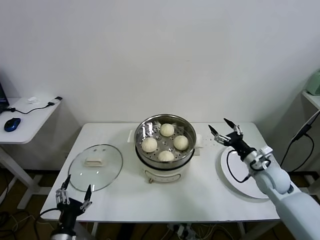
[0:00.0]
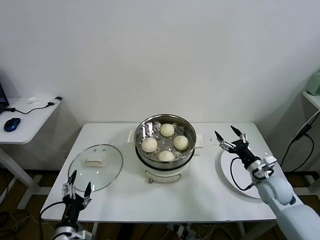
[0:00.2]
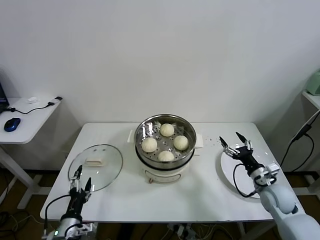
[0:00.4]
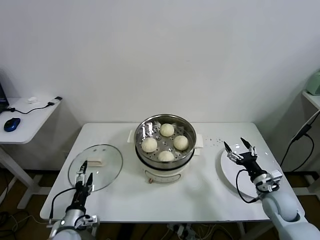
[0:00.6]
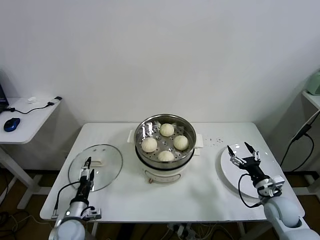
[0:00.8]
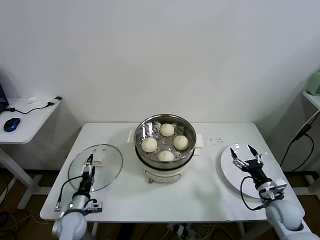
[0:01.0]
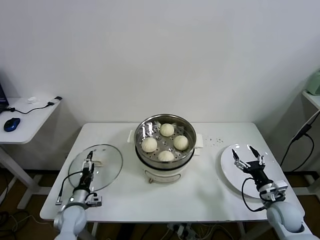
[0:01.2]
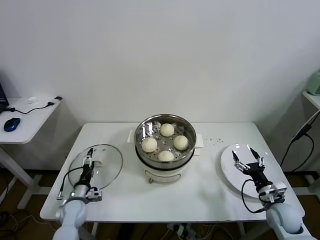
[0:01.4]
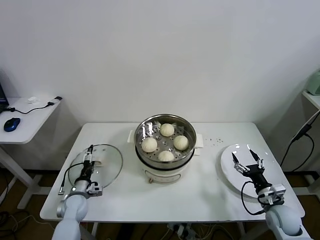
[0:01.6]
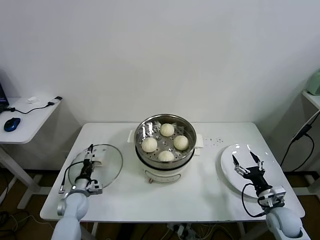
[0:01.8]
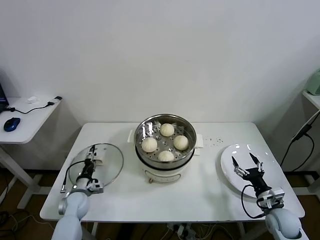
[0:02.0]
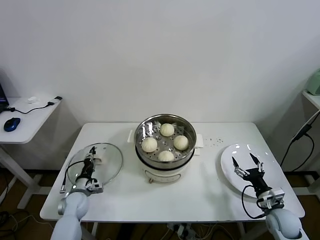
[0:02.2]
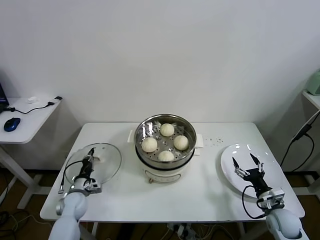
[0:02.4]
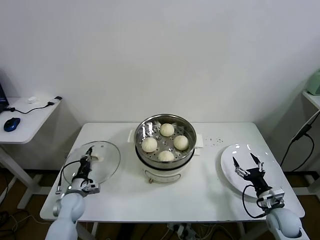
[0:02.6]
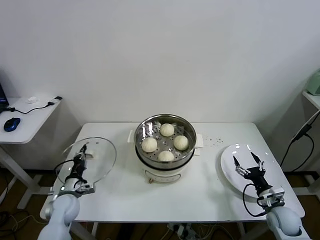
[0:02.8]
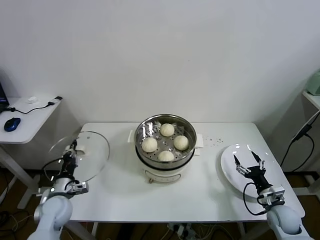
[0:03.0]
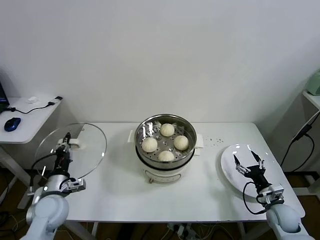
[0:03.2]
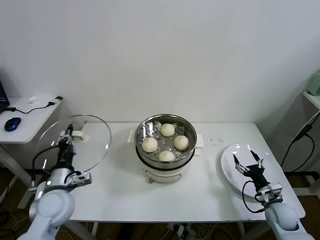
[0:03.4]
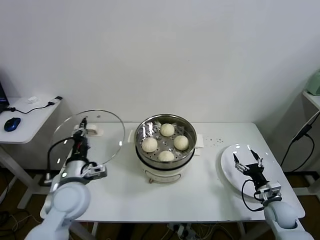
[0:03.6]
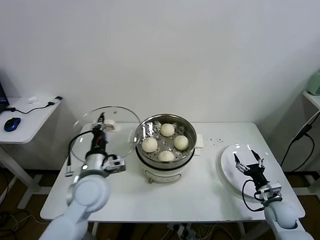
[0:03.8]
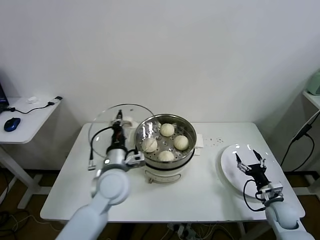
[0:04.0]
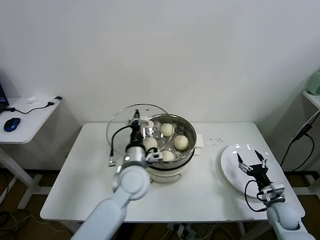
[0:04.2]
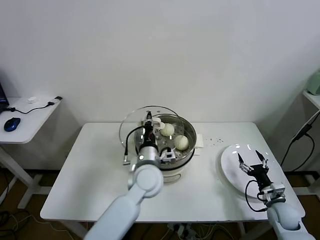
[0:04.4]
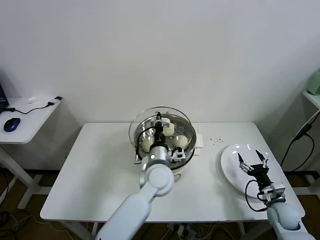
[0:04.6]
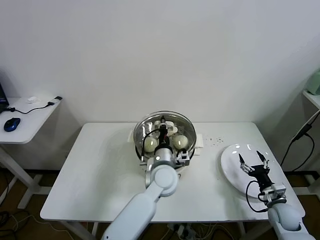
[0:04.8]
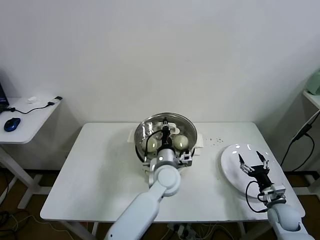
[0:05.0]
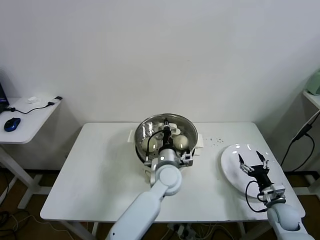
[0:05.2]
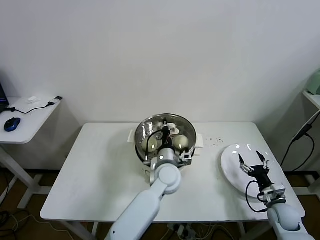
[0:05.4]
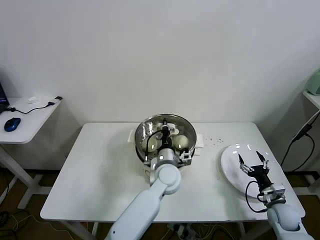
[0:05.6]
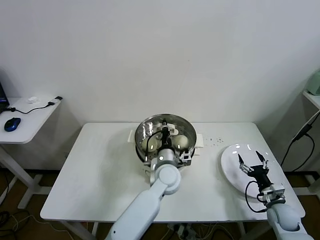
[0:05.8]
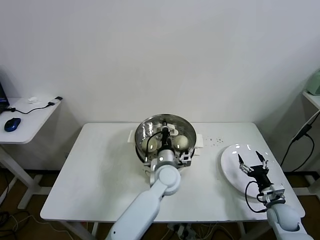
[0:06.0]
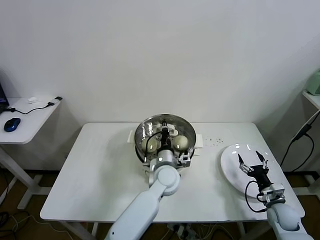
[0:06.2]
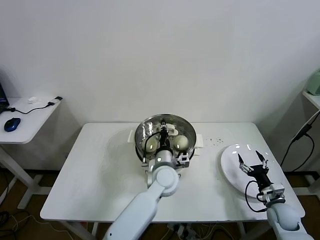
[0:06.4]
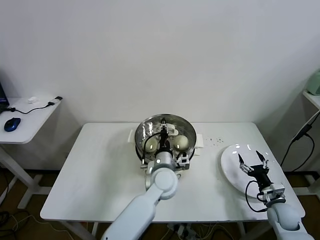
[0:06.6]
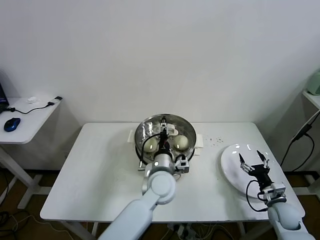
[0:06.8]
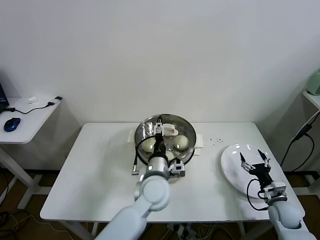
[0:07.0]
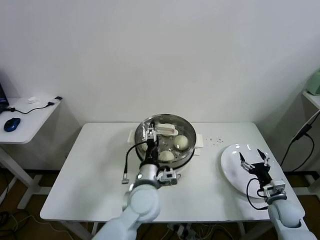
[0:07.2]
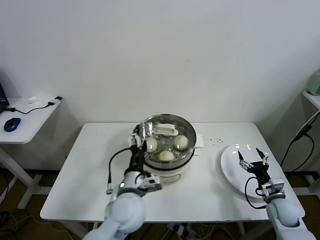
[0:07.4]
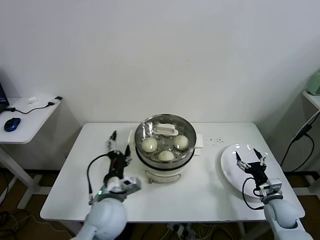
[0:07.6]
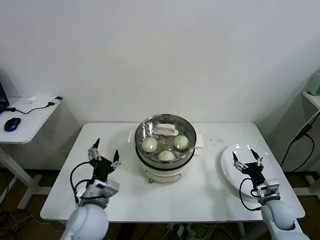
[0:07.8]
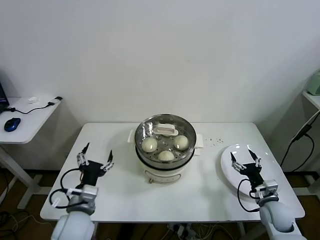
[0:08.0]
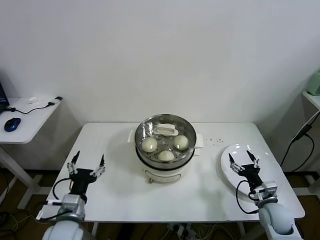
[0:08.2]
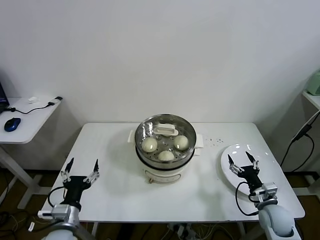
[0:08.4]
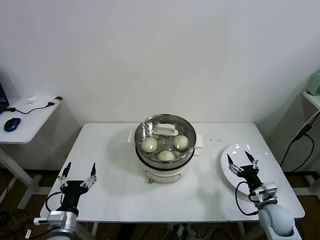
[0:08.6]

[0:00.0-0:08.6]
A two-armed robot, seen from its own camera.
Task of the whole recording: take steamed baozi put them in steamer.
Step, 0:00.0 to 0:02.4: Grasp the pot lid with left gripper.
Step, 0:02.6 to 0:06.8: Place the pot lid on the steamer with left gripper.
0:00.0 to 0:01.4: The right gripper shifts roughly 15 cm backward and downward; the left gripper shifts approximately 20 cm forward and downward.
0:01.4 to 0:02.8: The left gripper closes.
0:02.8 to 0:04.4: The left gripper is displaced to the right and upward by about 35 cm.
0:04.4 to 0:05.8: The left gripper moves to the right and downward, about 10 cm.
0:05.8 to 0:07.2: The left gripper moves backward and to the left, approximately 10 cm, and opens its fingers.
0:07.2 to 0:08.6: The left gripper is displaced to the left and backward by roughly 30 cm. The right gripper goes about 5 cm to the left.

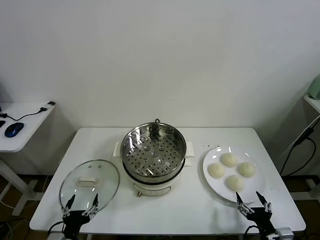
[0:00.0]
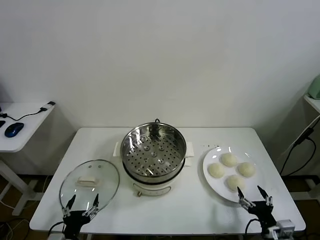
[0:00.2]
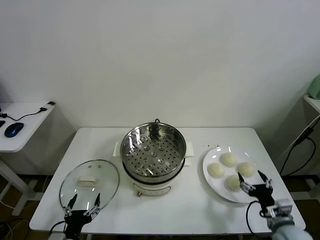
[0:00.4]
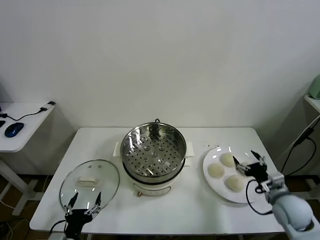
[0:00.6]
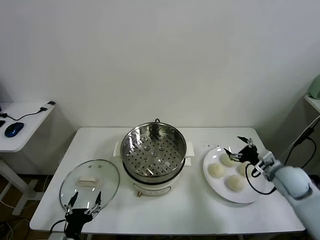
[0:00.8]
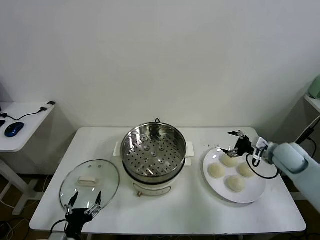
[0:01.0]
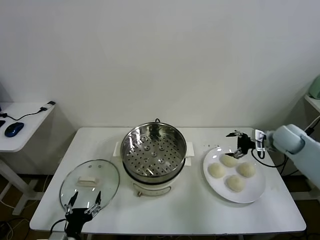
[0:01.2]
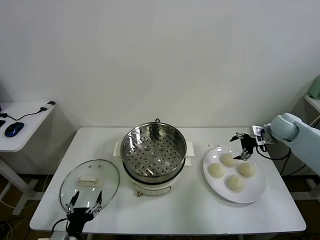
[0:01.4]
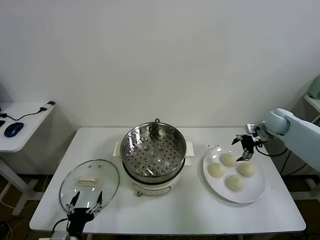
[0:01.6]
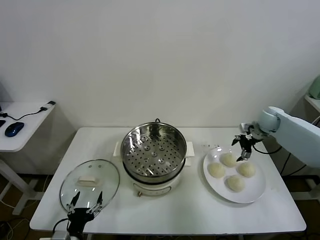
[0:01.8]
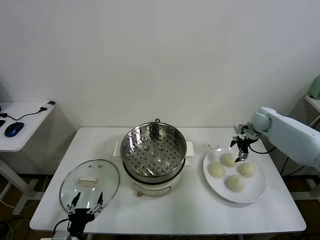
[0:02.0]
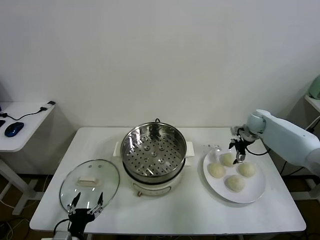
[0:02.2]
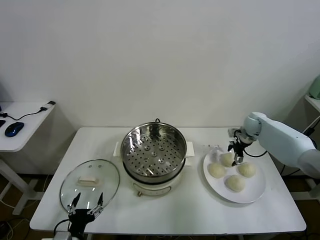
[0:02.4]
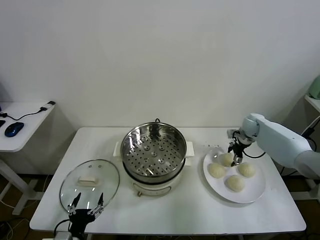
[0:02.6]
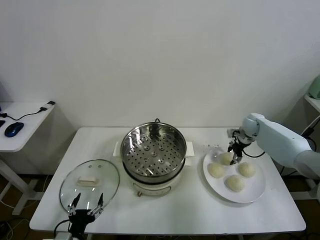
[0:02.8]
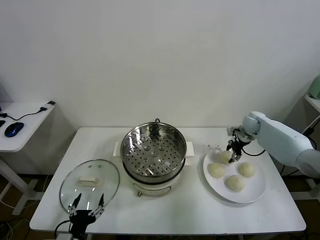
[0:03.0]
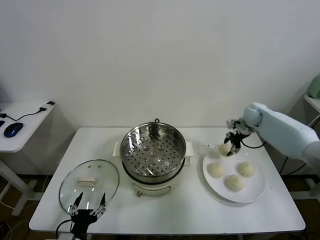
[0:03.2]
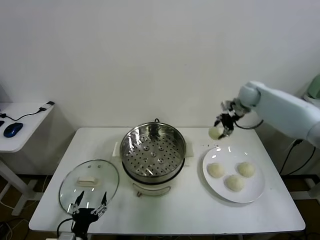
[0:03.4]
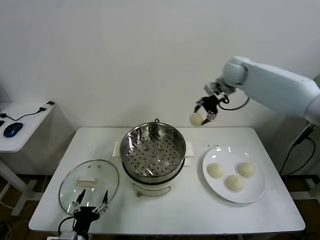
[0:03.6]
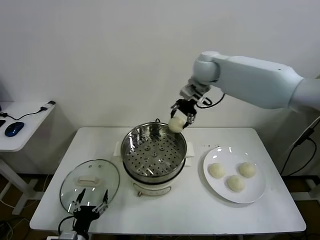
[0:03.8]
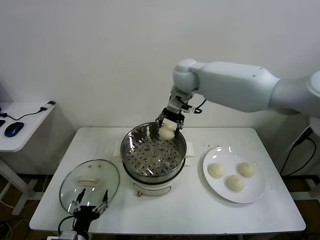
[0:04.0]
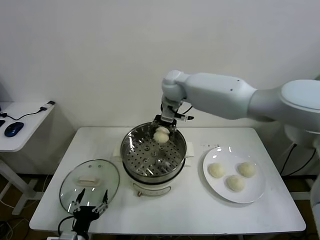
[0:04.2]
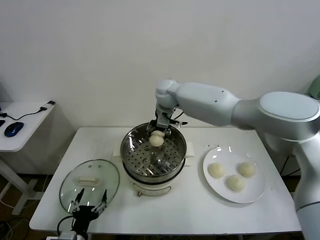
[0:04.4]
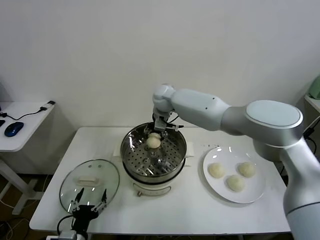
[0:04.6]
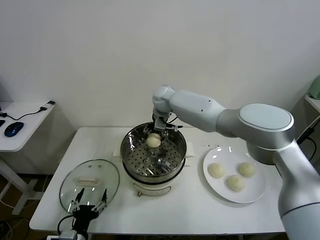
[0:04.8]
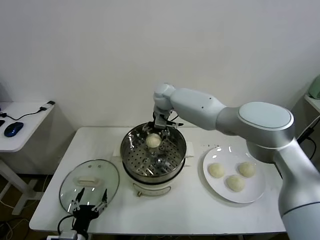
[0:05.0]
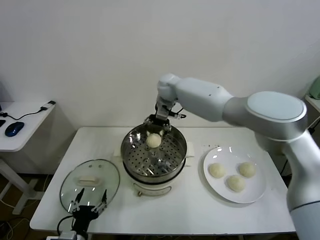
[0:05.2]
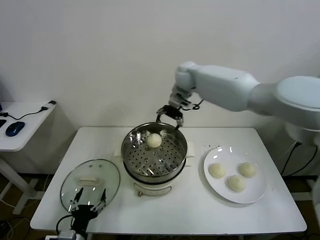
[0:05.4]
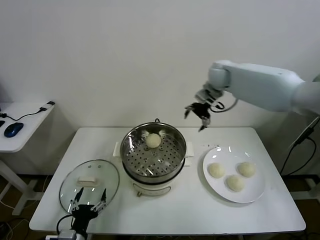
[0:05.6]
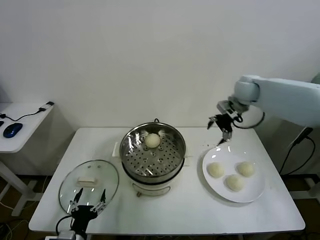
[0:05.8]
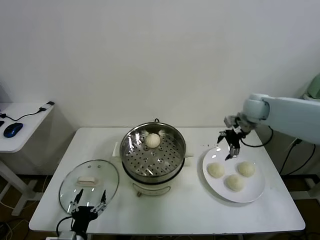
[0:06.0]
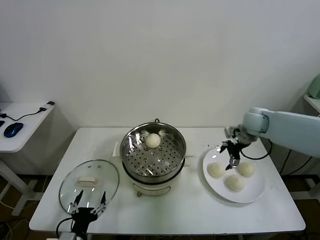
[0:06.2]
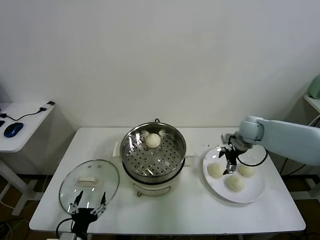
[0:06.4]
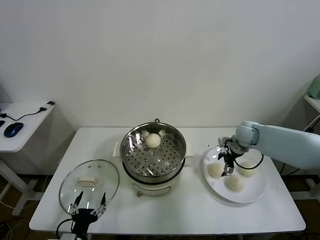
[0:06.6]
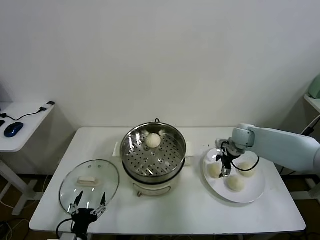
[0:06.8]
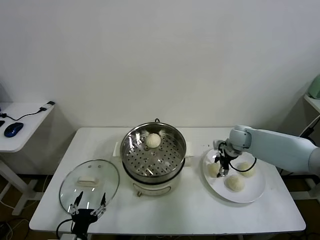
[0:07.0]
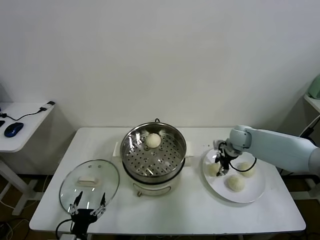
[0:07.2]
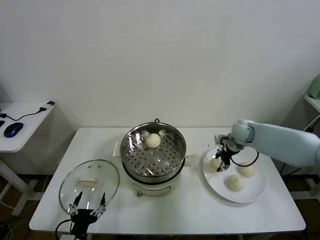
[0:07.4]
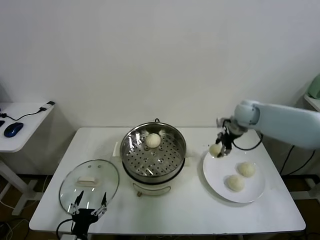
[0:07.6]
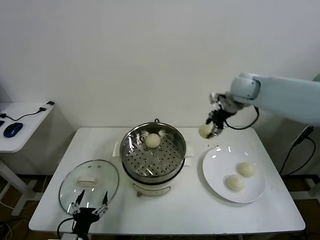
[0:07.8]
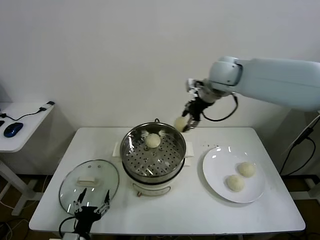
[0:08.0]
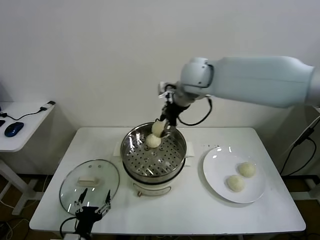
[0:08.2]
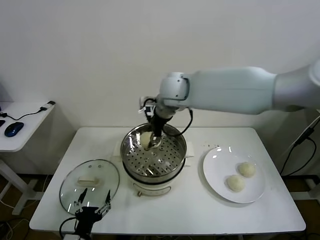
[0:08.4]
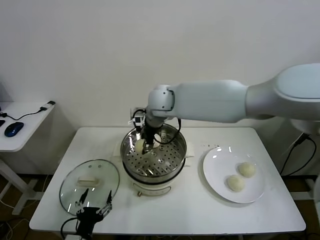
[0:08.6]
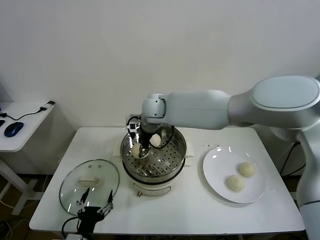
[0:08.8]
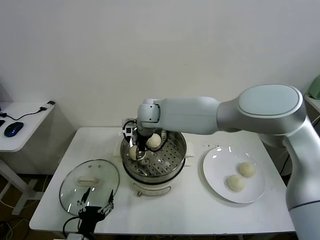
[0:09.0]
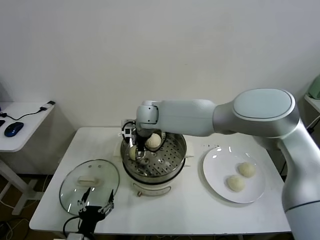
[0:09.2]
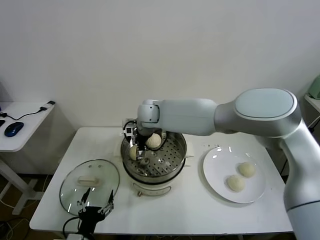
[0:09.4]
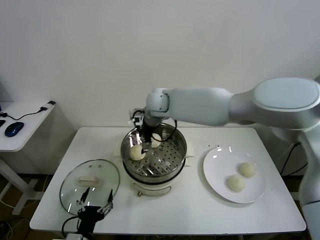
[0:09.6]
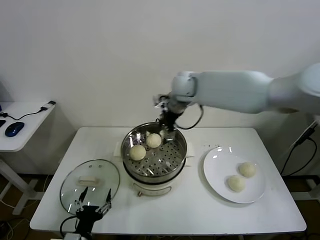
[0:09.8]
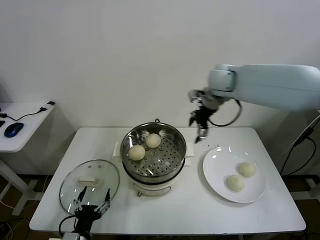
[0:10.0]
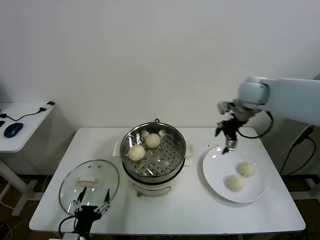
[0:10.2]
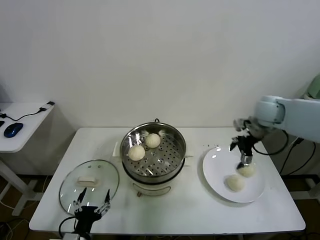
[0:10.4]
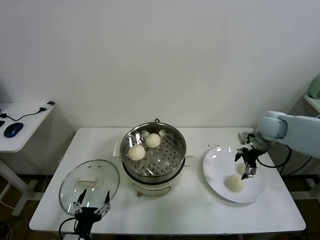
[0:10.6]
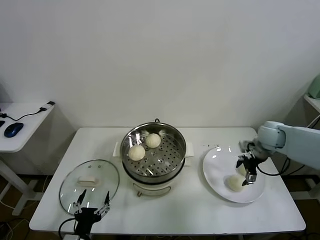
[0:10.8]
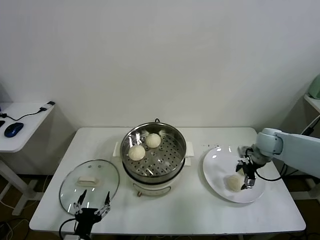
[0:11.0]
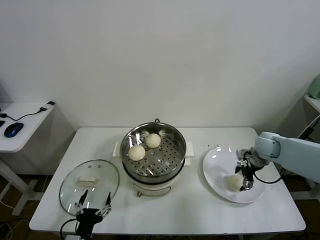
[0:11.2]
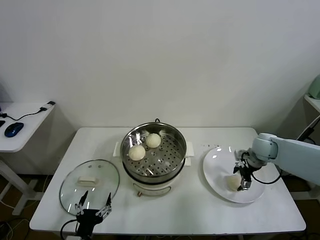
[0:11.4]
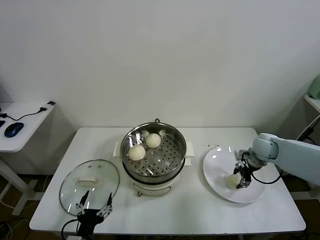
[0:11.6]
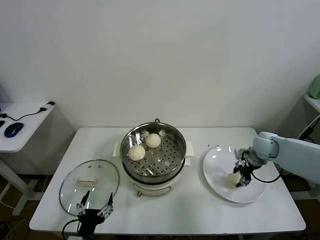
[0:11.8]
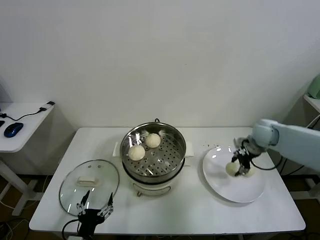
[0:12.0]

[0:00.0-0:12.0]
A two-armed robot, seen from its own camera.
Task of the whole recording: take steamed baozi put them in steamer.
Step, 0:00.0 to 0:03.0: Grasp the baozi in the plate with right gripper.
Step, 0:03.2 to 0:05.0: Place the baozi on the steamer with right gripper.
Step, 0:05.2 to 0:07.0: Grasp the baozi in the plate with right gripper.
Step, 0:07.2 to 0:09.4: Place the baozi on the steamer with right gripper.
Step, 0:09.6 to 0:11.8: Grasp the baozi in the plate with right gripper.
0:01.6 to 0:03.0: The right gripper changes place by about 5 cm, and closes its fingers.
0:03.0 to 0:04.4: The right gripper shifts approximately 35 cm to the left.
0:04.4 to 0:06.0: The right gripper is displaced to the right by approximately 30 cm, and opens.
0:06.0 to 0:07.6: The right gripper moves approximately 10 cm downward and comes back, and closes its fingers.
0:07.6 to 0:09.0: The right gripper moves to the left, roughly 35 cm.
0:09.0 to 0:10.4: The right gripper moves to the right, approximately 40 cm, and opens up.
0:10.4 to 0:12.0: The right gripper goes approximately 5 cm downward, and closes up.

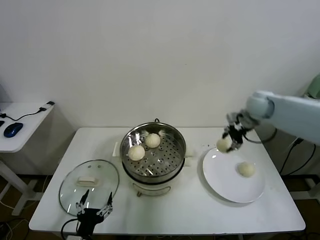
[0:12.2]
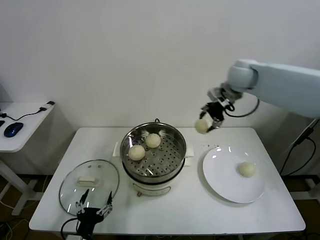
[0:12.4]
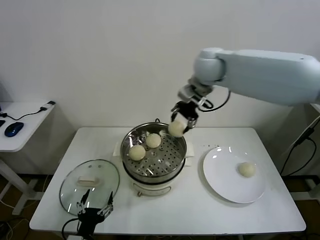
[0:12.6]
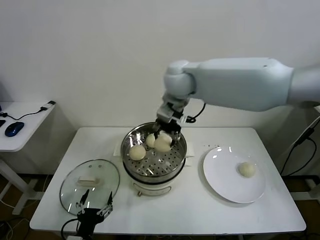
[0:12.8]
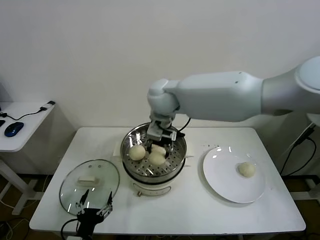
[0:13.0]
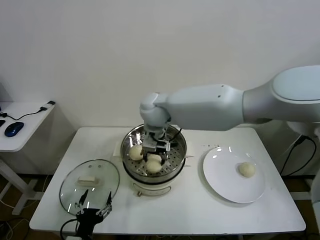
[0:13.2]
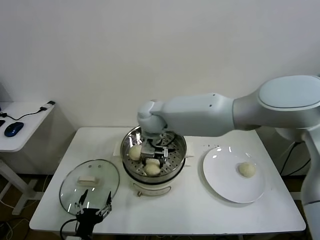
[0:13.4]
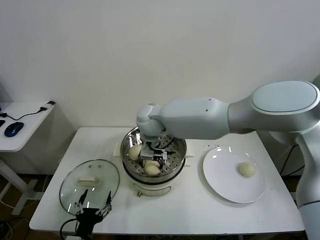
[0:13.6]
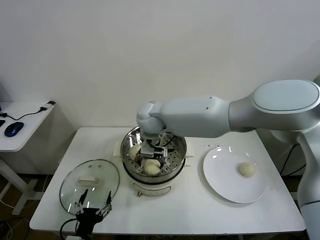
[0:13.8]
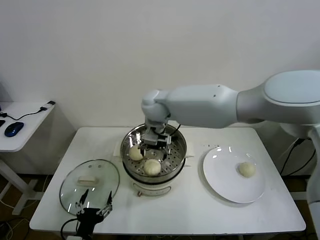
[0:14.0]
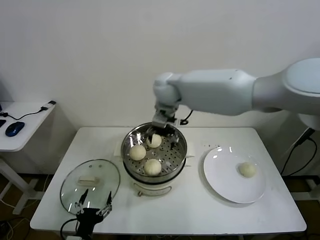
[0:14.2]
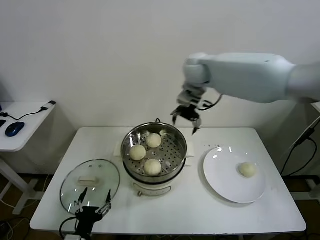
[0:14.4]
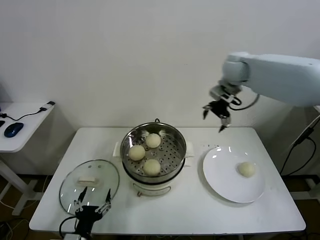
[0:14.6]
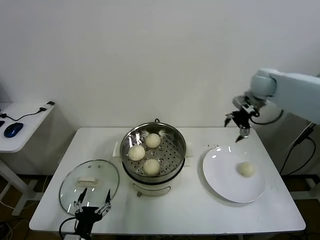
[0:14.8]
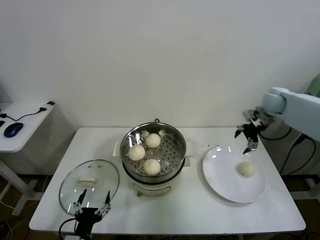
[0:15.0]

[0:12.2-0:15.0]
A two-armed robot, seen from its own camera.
Task of the whole recording: take steamed baozi put them in steamer.
Step, 0:12.2 to 0:13.8: Place the baozi on the steamer with right gripper.
0:12.2 to 0:13.6: The right gripper heads to the left, covering some 35 cm, and opens its fingers.
0:13.6 to 0:15.0: The right gripper is displaced to the right by roughly 50 cm.
